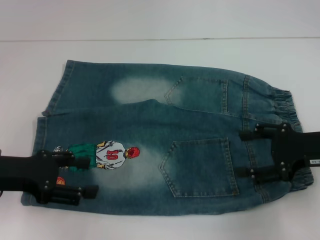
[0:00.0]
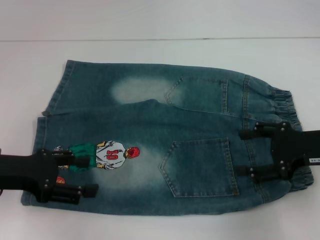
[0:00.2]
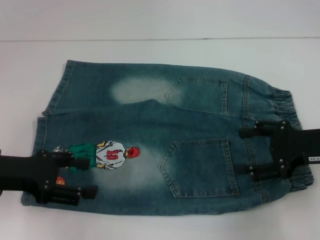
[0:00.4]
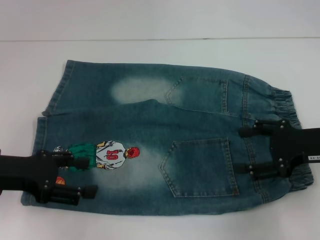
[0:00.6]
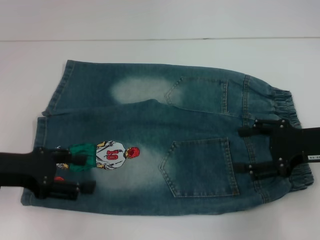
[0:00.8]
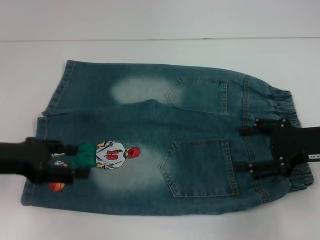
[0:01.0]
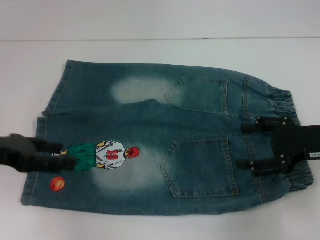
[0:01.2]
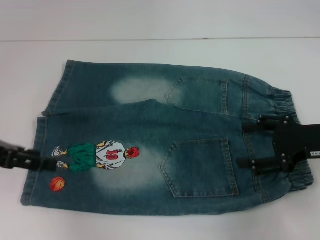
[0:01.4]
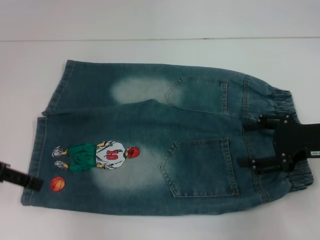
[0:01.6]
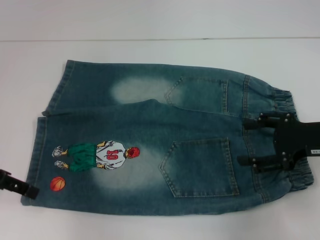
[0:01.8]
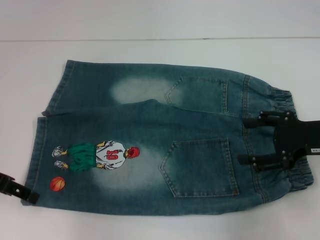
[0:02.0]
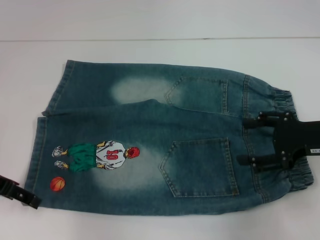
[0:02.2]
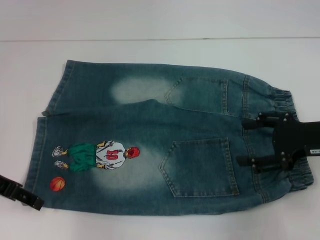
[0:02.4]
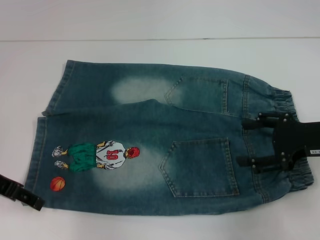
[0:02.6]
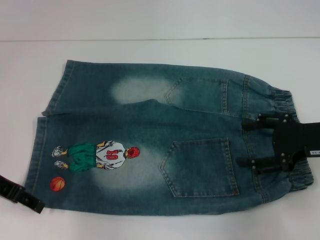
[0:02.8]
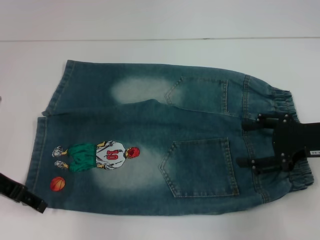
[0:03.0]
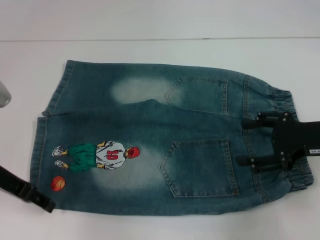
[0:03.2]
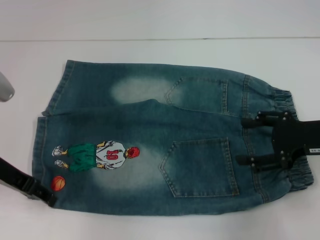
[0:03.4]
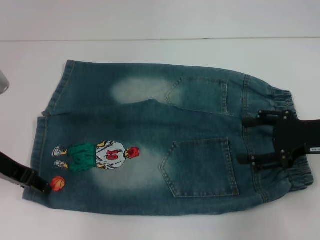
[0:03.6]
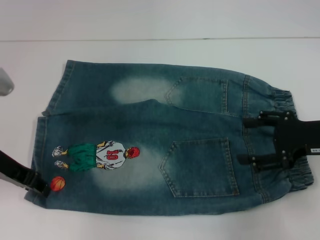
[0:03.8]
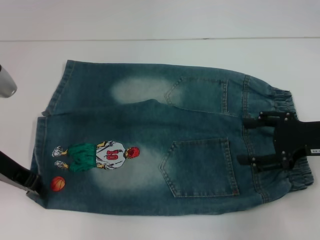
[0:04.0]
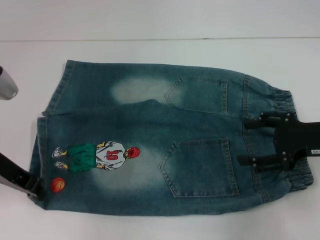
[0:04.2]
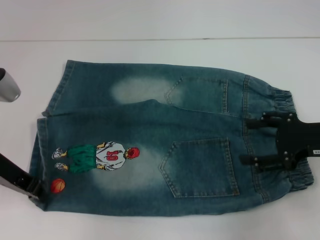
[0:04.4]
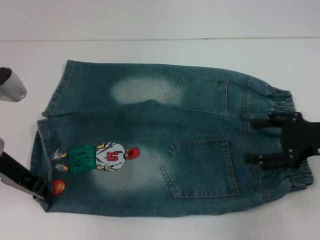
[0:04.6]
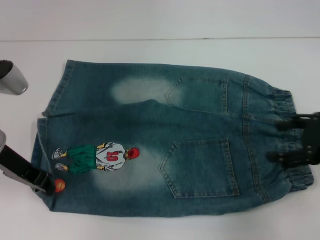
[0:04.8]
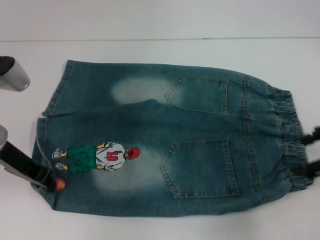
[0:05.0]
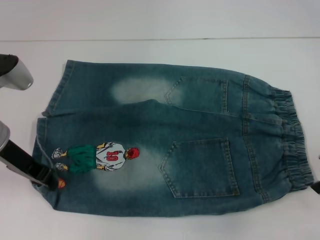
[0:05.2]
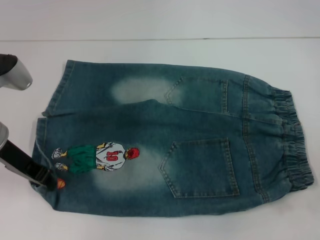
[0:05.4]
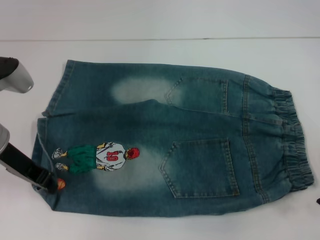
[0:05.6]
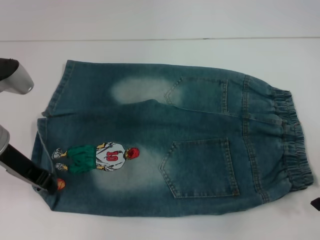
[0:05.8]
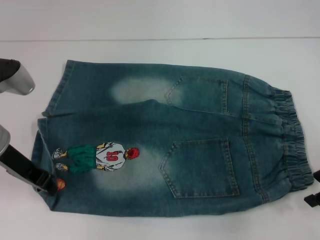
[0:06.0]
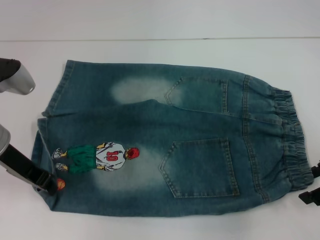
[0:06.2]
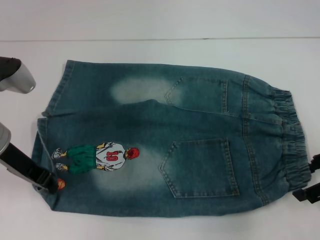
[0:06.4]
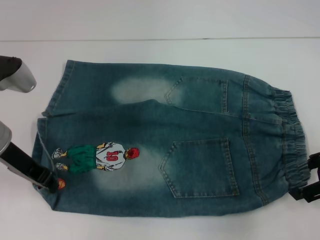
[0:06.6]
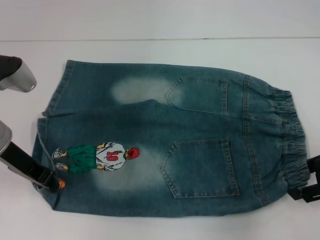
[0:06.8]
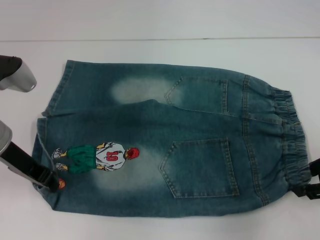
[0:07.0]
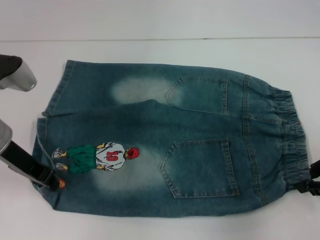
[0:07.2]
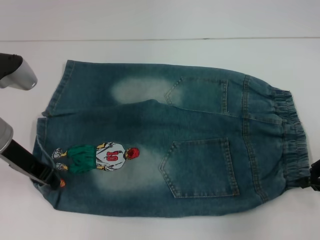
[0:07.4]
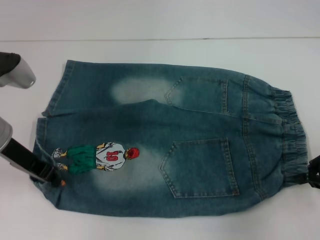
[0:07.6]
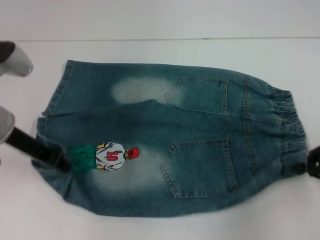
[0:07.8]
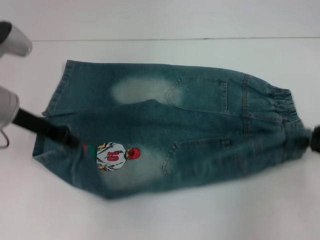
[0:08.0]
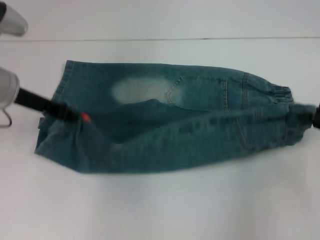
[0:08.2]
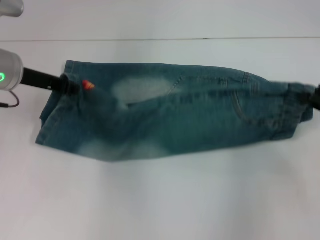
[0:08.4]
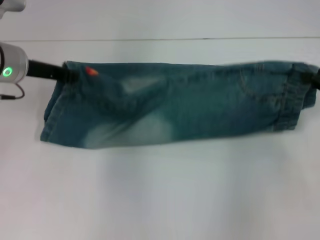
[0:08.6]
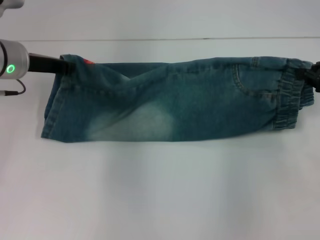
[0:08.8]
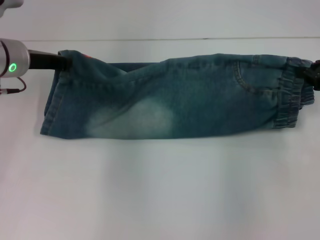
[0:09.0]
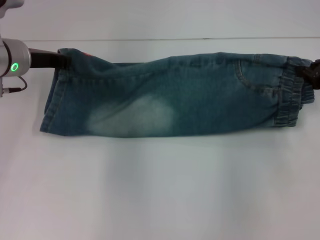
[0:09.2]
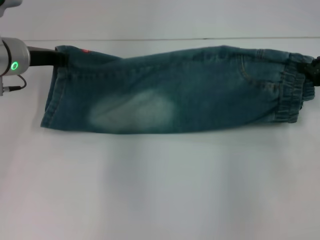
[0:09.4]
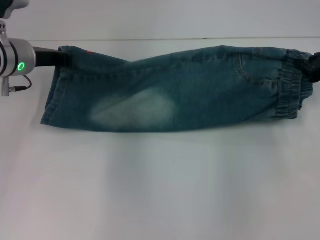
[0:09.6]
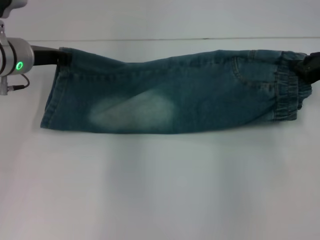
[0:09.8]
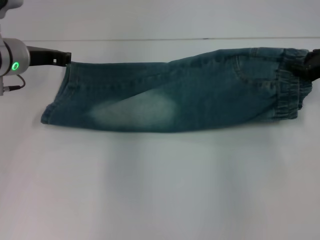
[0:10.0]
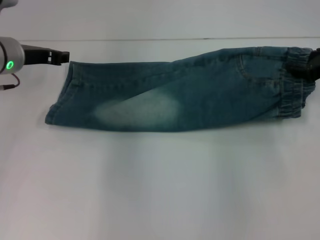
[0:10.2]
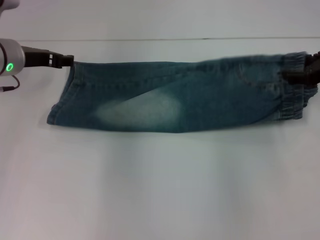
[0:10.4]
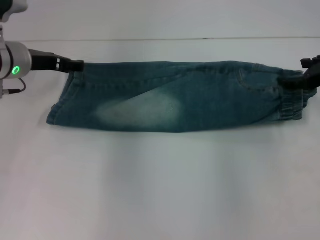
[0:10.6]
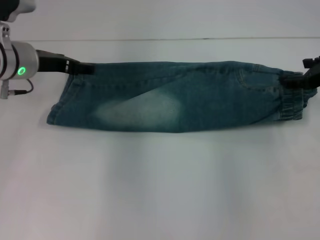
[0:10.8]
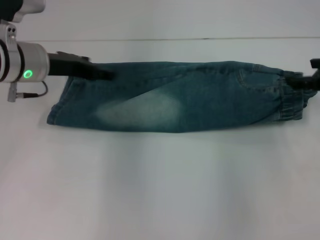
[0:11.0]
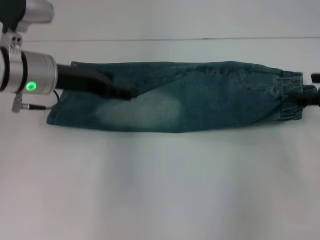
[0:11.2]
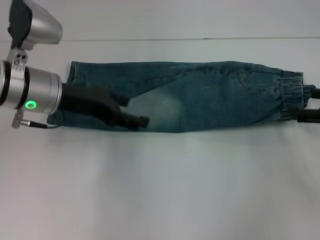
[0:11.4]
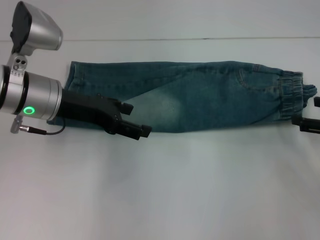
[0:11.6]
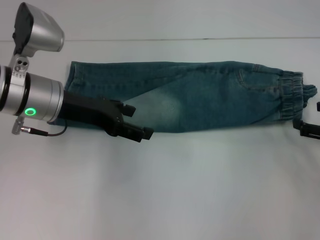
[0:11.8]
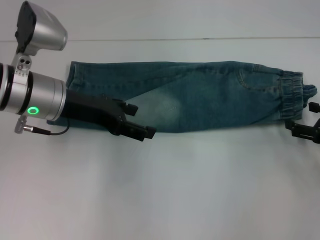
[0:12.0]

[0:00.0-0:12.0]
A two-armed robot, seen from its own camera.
Step, 0:00.0 to 0:04.4: Grab the lower left pant leg with your left hand.
Step, 0:04.6 to 0:07.6: Hold the lower right waistband with your right hand.
Step, 0:07.8 to 0:10.8: Fold upward with your right hand.
0:00.0 to 0:01.6: The left gripper heads upward, covering approximately 5 cm.
0:01.6 to 0:03.0: The left gripper shifts by about 5 cm.
0:03.0 to 0:04.4: The left gripper closes.
0:06.0 to 0:07.6: The right gripper closes its fingers.
0:07.6 to 0:09.0: Both grippers travel together forward, roughly 10 cm.
0:09.0 to 0:10.4: The left gripper opens. Meanwhile the right gripper opens its fingers.
0:10.4 to 0:12.0: The right gripper goes approximately 10 cm backward and downward, and opens, while the left gripper moves backward and to the right, about 10 cm, and opens.

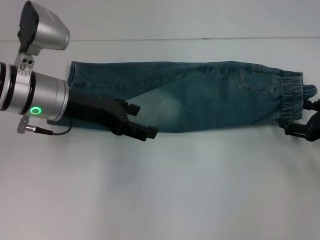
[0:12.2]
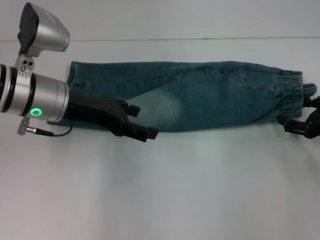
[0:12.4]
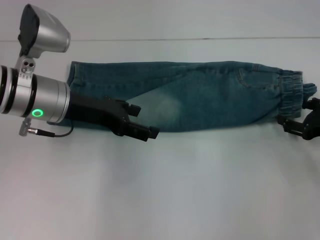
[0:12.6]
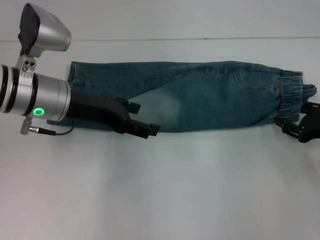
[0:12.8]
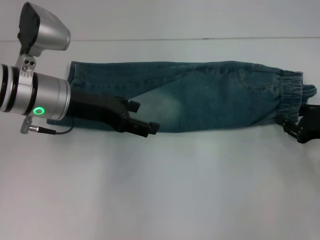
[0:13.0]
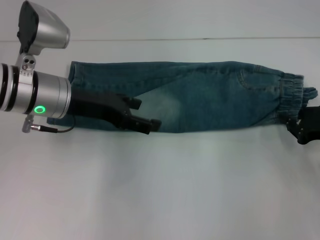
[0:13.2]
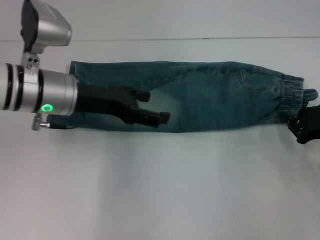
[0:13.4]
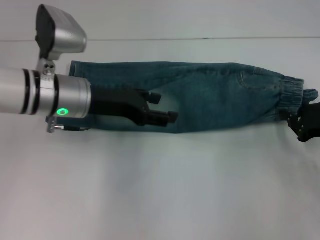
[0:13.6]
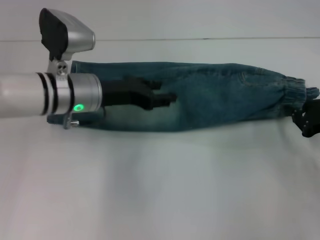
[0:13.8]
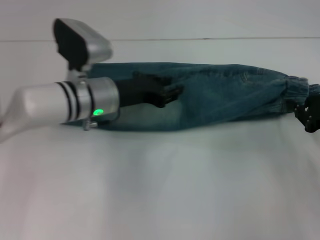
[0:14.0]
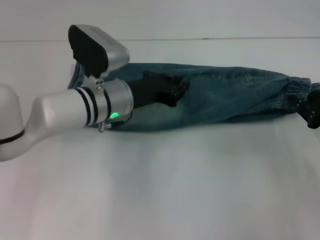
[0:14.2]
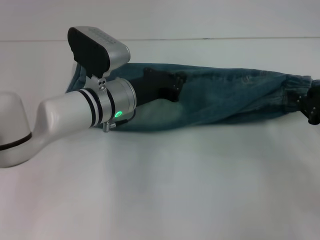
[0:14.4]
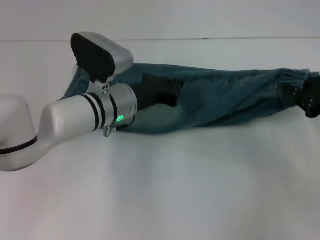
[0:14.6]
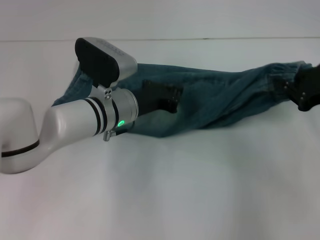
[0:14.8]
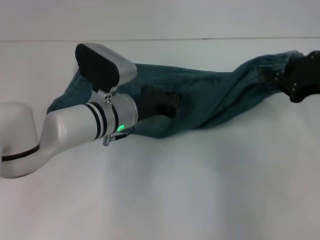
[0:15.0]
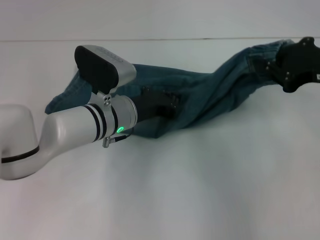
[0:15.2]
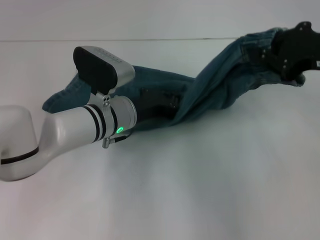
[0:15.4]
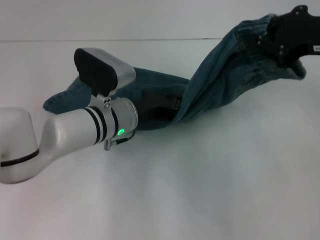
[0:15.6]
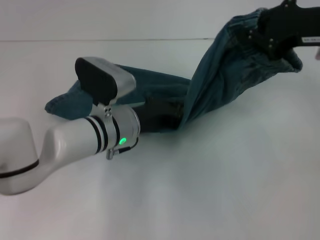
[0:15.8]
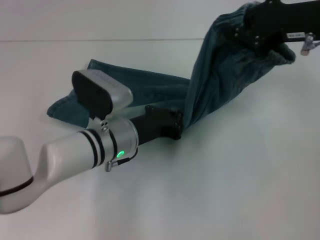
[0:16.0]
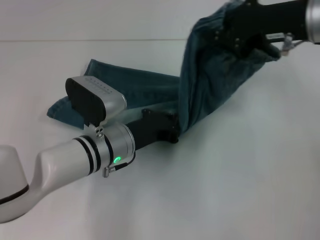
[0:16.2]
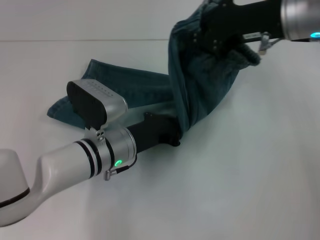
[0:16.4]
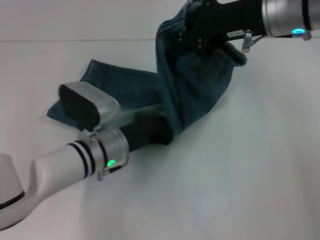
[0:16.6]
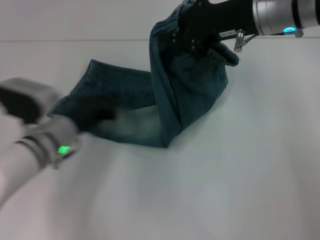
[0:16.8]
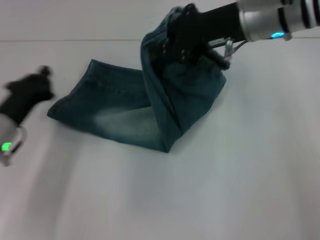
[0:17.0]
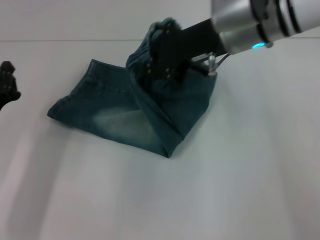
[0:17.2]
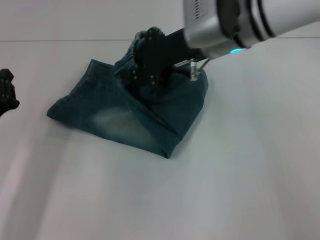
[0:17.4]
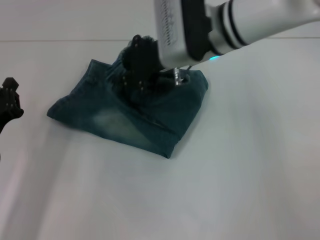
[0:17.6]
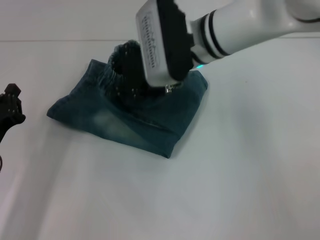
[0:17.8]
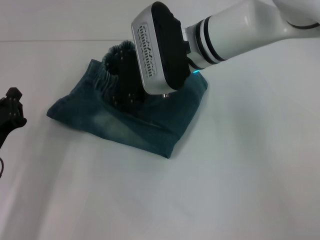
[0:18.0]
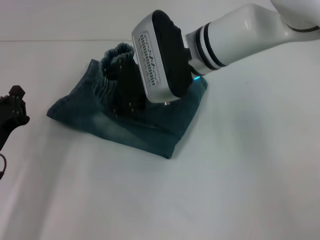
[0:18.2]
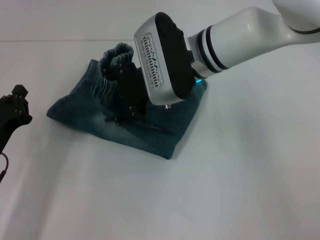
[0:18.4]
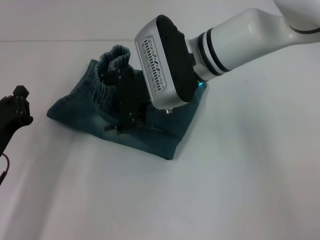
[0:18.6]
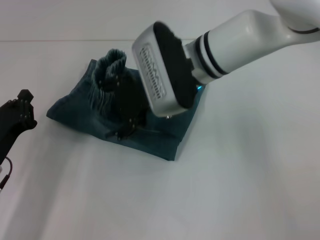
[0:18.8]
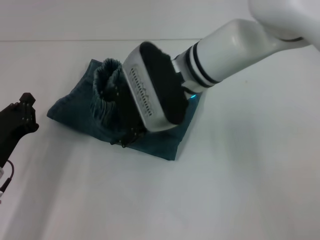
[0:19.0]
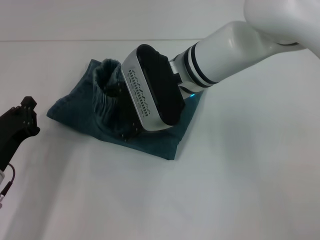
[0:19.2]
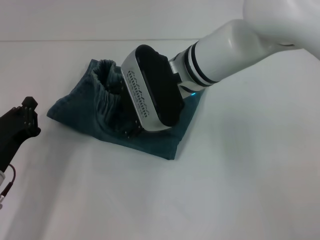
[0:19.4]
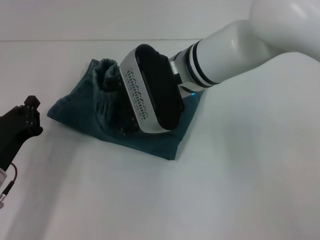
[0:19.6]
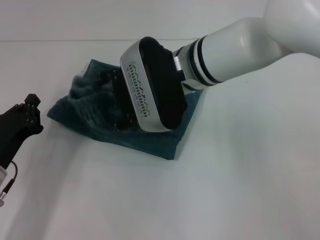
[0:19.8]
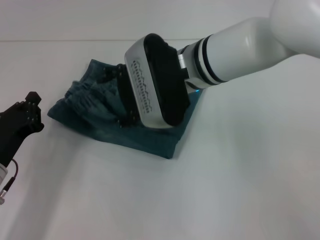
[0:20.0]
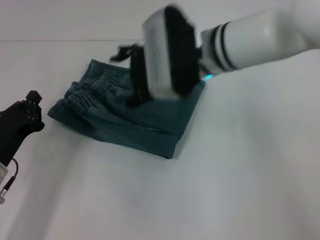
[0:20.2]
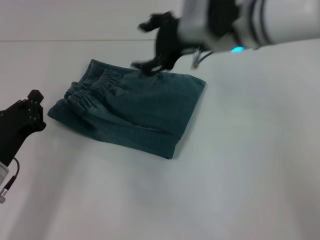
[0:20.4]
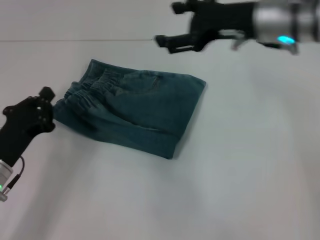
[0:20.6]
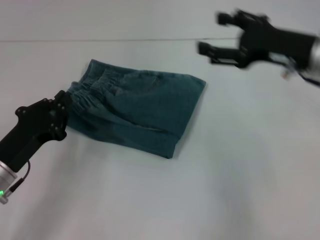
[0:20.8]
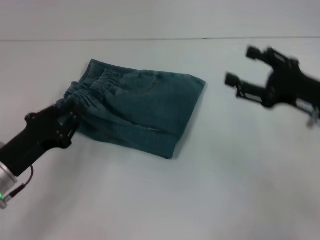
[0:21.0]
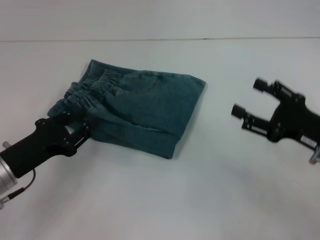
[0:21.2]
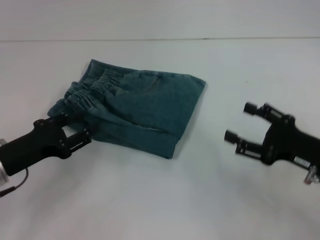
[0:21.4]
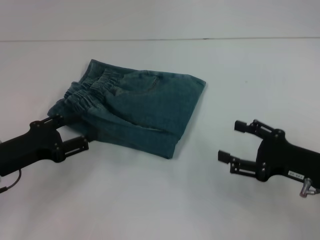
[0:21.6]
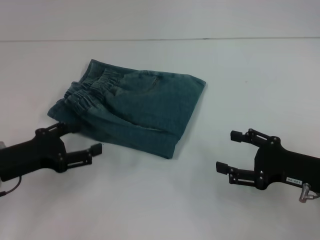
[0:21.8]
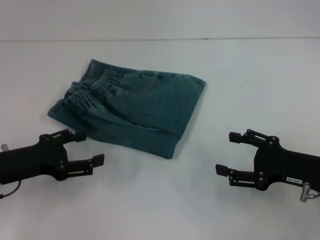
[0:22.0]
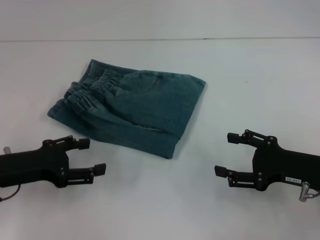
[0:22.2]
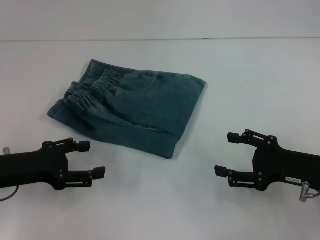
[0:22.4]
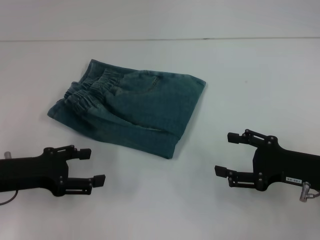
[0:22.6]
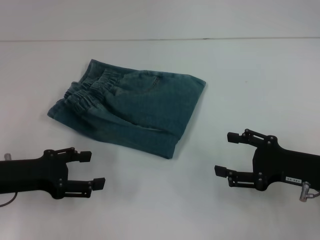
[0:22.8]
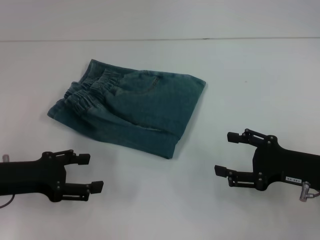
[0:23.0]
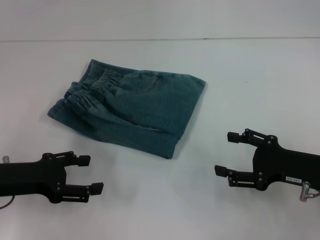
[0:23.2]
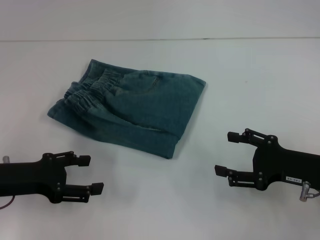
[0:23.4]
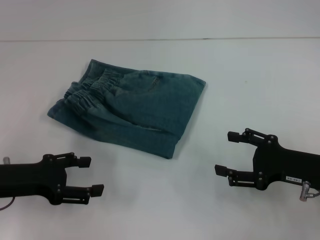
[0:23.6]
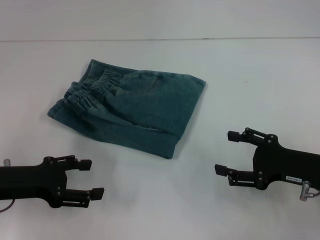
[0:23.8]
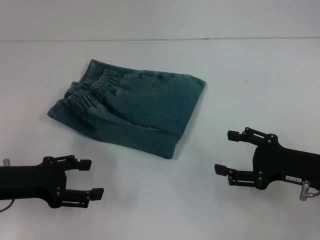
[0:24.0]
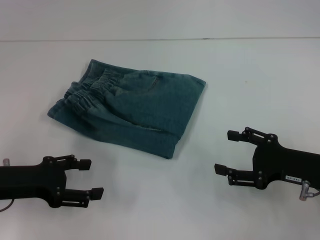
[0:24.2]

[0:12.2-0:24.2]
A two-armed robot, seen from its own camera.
Step, 0:13.8 to 0:16.6: Press the middle of the pants with your left hand.
Step, 0:16.8 to 0:20.0: Fold to the left with your right hand.
0:12.2 to 0:13.8: The left gripper moves approximately 5 cm. Meanwhile the right gripper closes.
0:13.8 to 0:15.2: The right gripper heads upward and to the left, covering roughly 15 cm; the left gripper goes some 10 cm downward and to the right, and closes up.
0:15.2 to 0:16.6: The right gripper goes about 15 cm to the left and forward, while the left gripper ends up approximately 5 cm from where it was.
0:16.6 to 0:18.2: The left gripper shifts about 15 cm to the left. Meanwhile the right gripper moves to the left and downward, roughly 15 cm, and opens.
0:18.2 to 0:19.8: The right gripper opens its fingers.
0:19.8 to 0:21.2: The right gripper heads to the right, downward and backward, covering about 30 cm.
0:21.2 to 0:22.6: The left gripper opens up.
0:22.6 to 0:24.2: Both grippers stay put.
